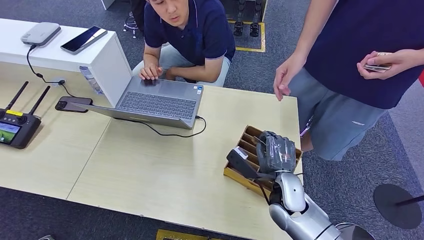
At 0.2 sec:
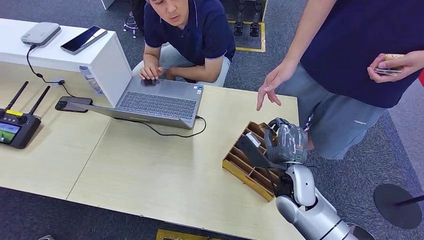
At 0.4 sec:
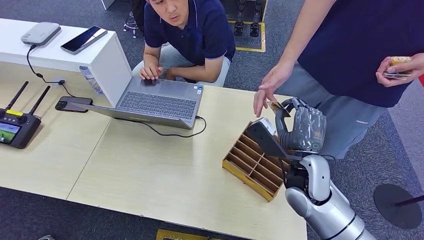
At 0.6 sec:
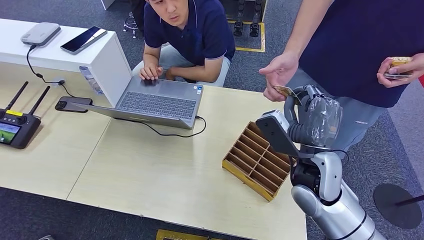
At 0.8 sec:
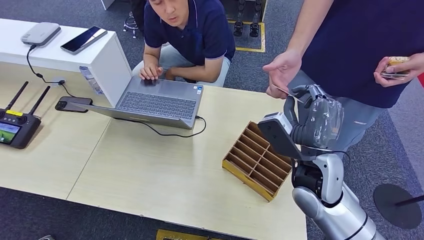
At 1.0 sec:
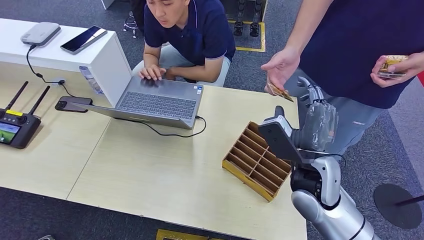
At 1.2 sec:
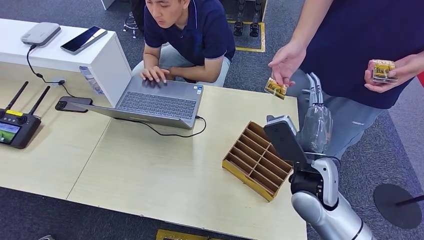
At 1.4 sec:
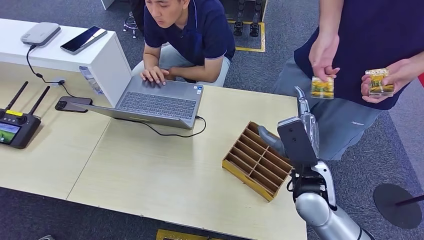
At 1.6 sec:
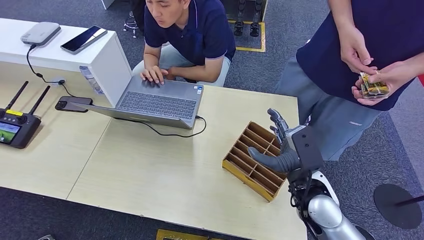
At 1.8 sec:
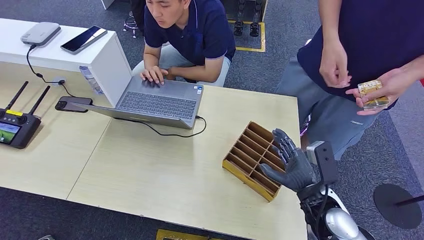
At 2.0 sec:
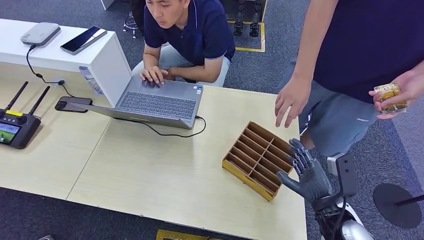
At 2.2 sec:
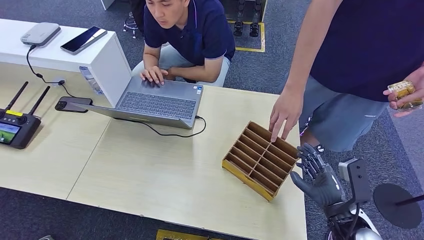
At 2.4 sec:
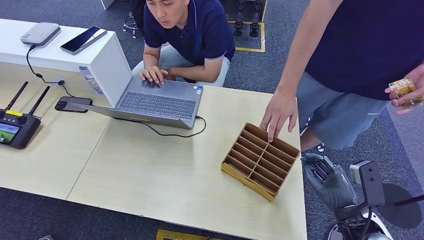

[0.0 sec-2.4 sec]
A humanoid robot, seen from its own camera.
Step, 0.2 sec to 2.4 sec: Hand the room card to the target.
0.0 sec to 1.2 sec: The right hand moves roughly 10 cm upward and comes back.
1.2 sec to 2.4 sec: The right hand heads to the right and backward, covering some 15 cm.
